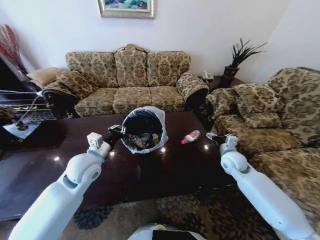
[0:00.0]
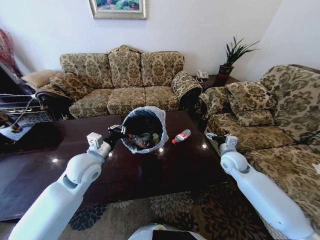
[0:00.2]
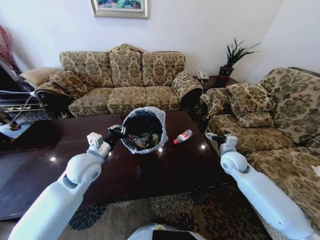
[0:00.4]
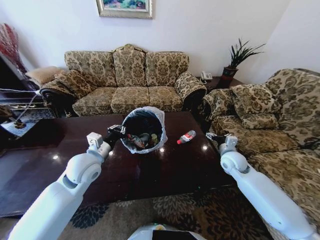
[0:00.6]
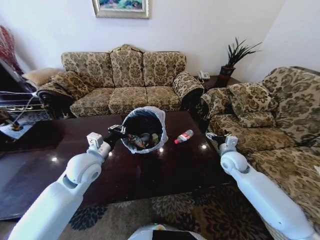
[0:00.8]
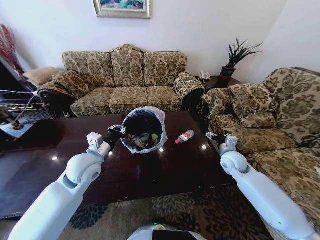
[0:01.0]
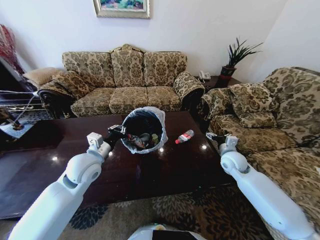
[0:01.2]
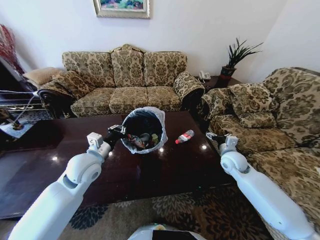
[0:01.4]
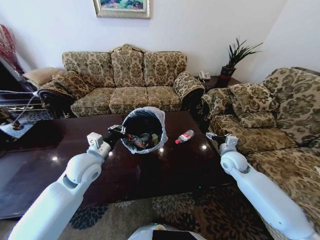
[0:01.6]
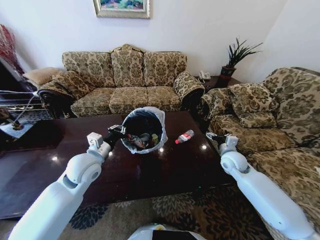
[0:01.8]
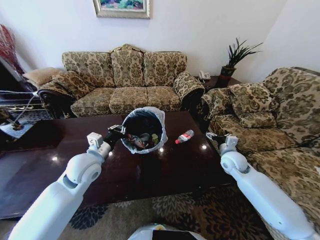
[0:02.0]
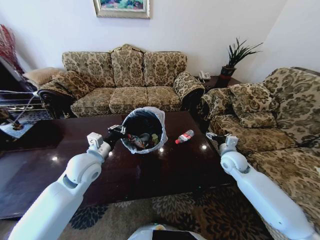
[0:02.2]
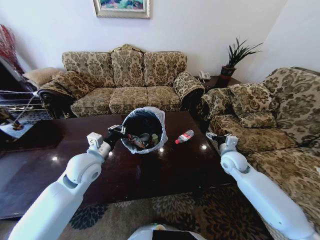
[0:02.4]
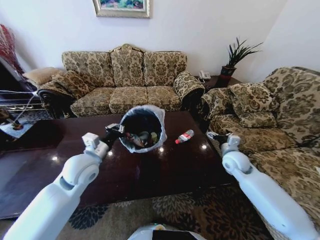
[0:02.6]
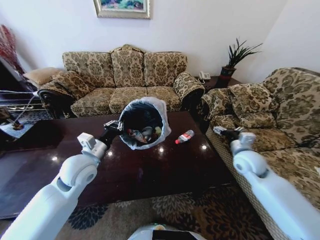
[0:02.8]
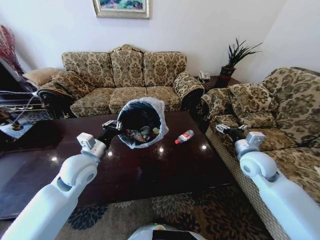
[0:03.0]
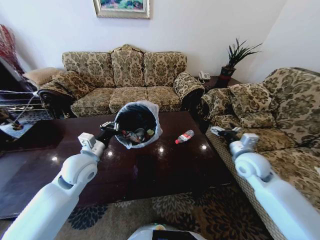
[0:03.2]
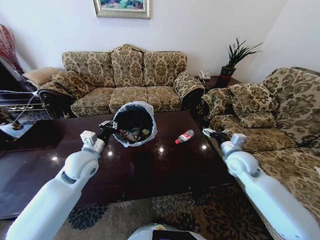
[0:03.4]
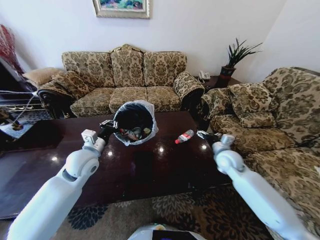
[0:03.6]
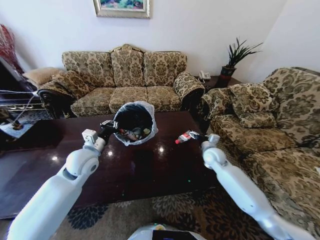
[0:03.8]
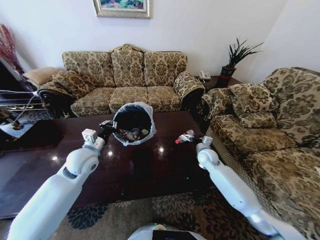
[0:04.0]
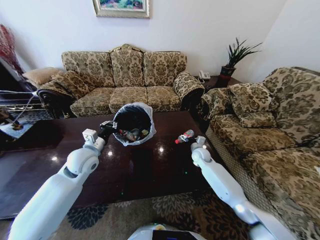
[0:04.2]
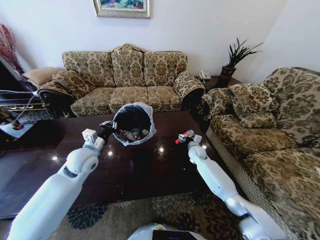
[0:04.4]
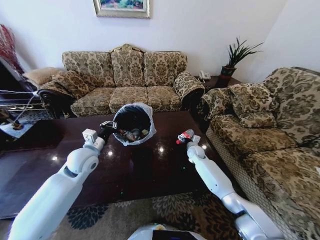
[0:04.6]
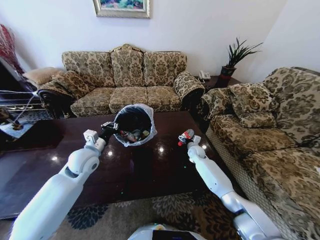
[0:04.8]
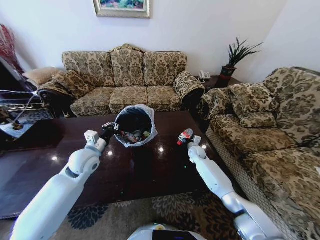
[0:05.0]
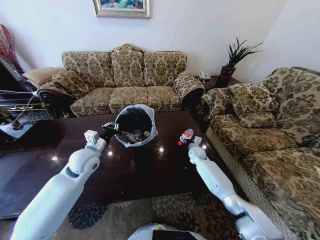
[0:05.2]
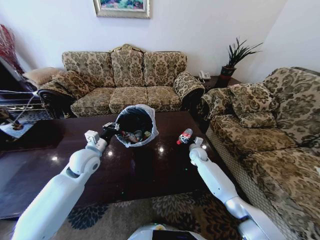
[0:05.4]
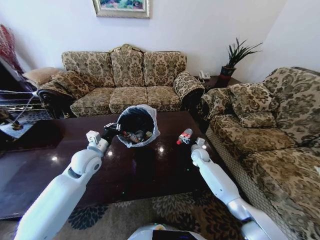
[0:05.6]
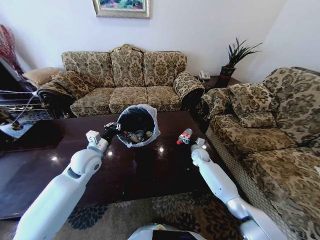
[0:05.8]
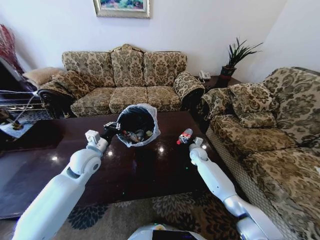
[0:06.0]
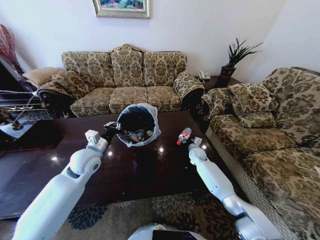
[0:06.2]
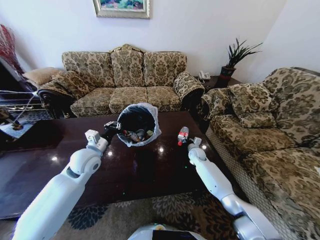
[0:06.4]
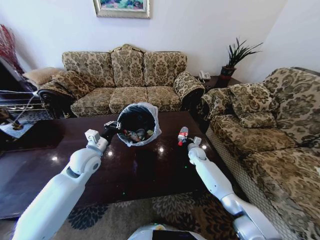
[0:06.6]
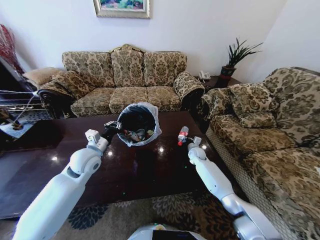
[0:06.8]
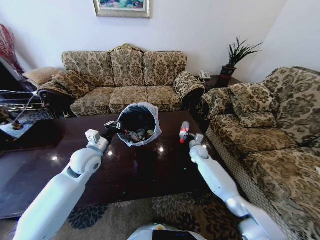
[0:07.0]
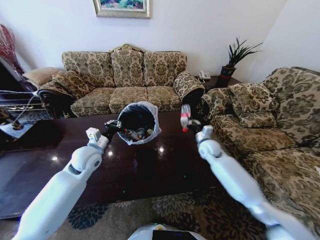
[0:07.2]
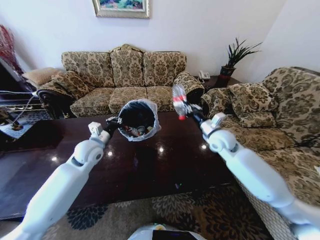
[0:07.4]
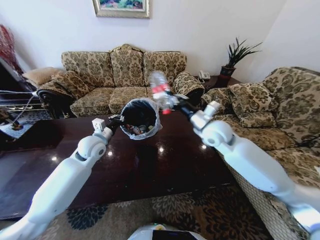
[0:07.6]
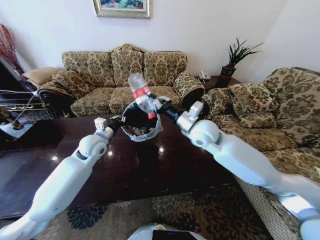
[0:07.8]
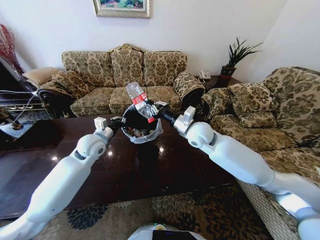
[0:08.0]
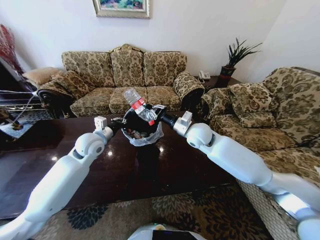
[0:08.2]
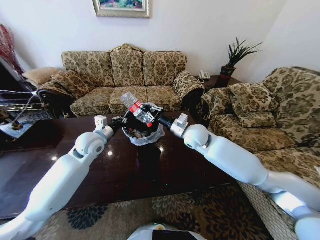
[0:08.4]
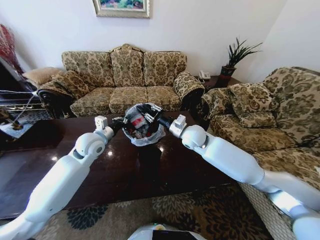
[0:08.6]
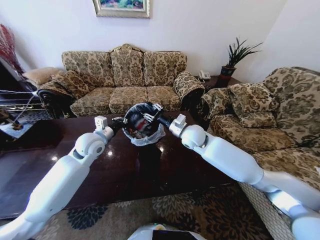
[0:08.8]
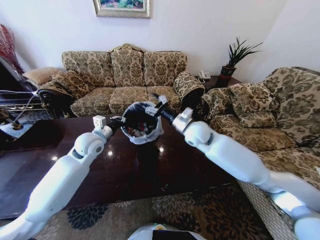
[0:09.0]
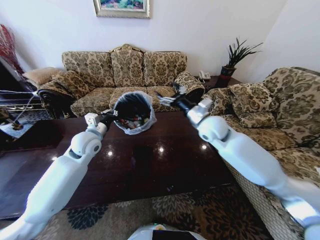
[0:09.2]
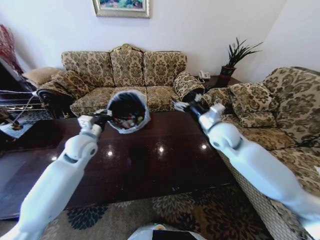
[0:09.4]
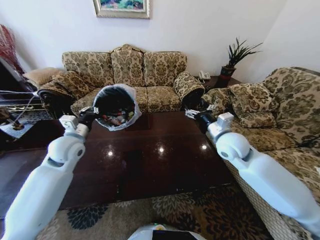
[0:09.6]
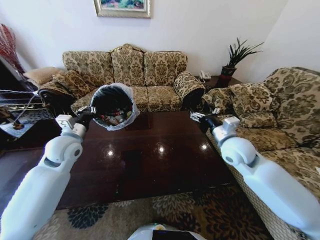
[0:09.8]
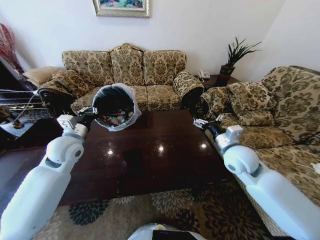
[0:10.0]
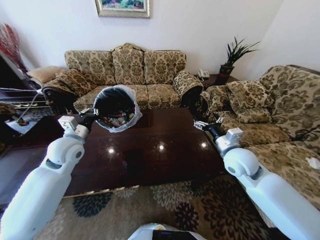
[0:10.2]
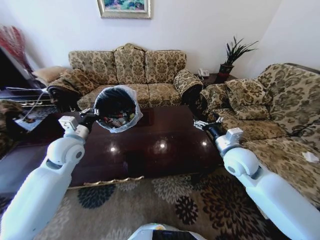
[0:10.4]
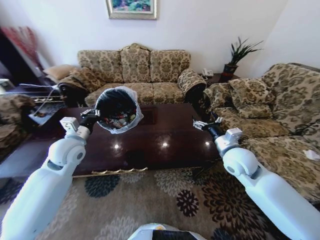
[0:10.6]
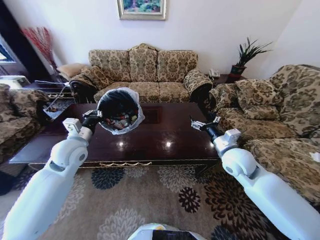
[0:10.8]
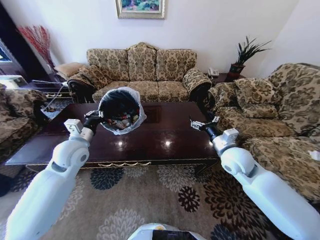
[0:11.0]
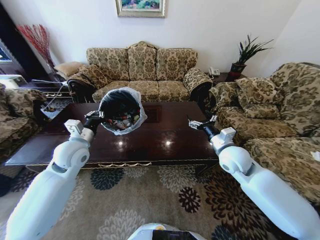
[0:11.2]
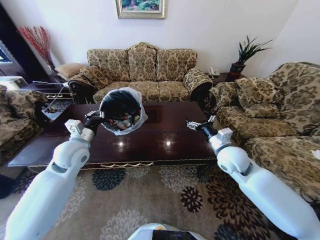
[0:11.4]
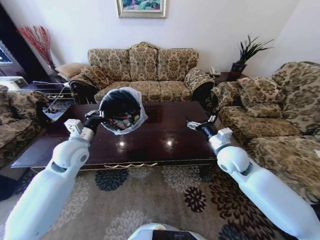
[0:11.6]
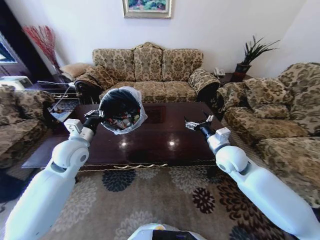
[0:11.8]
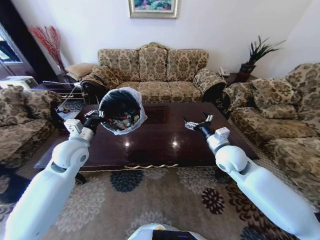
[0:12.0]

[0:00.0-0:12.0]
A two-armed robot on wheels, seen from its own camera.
Task of the whole recording: Move to the front of the table and place the trash on the table into the trash bin.
0:00.0 to 0:01.6: Both grippers stay about where they are.
0:01.6 to 0:03.0: The right gripper heads upward and backward, covering about 10 cm.
0:03.0 to 0:04.4: The right gripper moves downward, forward and to the left, approximately 30 cm. The left gripper changes place by some 5 cm.
0:04.4 to 0:06.0: The grippers stay close to where they were, moving slightly.
0:06.0 to 0:07.6: The left gripper moves forward, roughly 5 cm; the right gripper shifts some 30 cm upward, and closes its fingers.
0:07.6 to 0:09.0: The right gripper shifts roughly 5 cm to the left, and opens its fingers.
0:09.0 to 0:10.4: The left gripper shifts by some 5 cm, while the right gripper moves to the right and backward, about 15 cm.

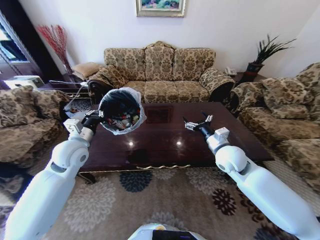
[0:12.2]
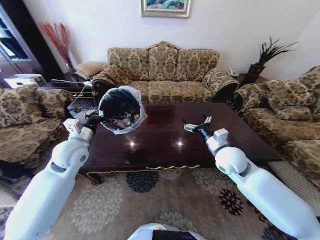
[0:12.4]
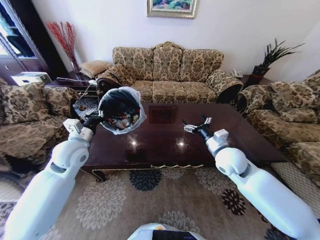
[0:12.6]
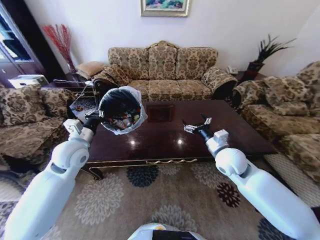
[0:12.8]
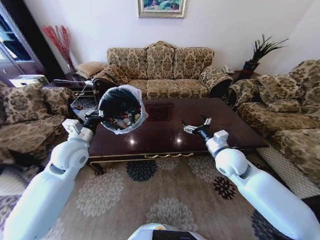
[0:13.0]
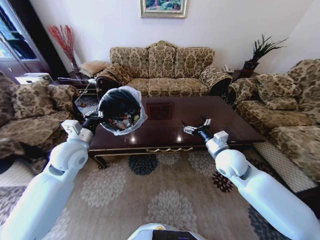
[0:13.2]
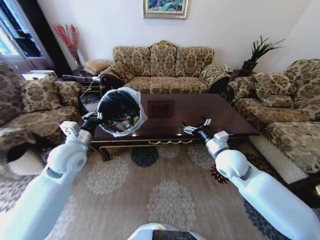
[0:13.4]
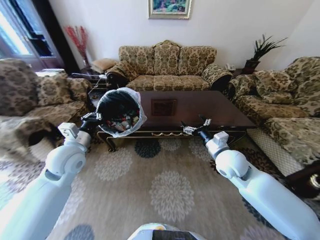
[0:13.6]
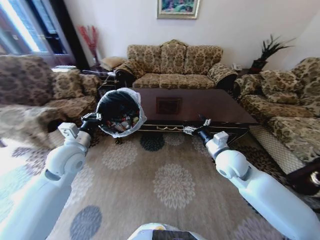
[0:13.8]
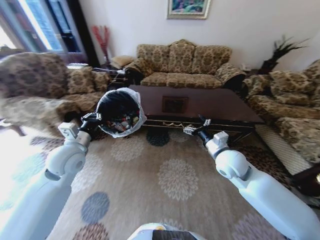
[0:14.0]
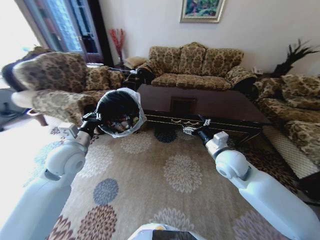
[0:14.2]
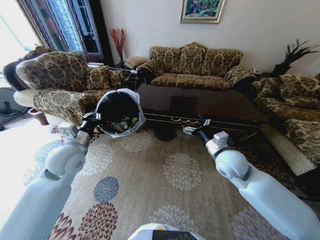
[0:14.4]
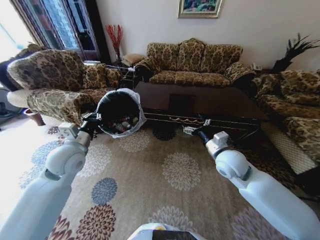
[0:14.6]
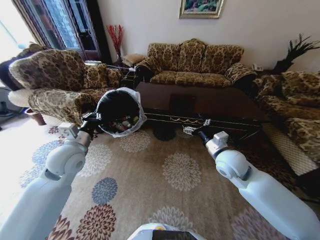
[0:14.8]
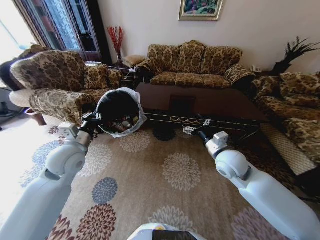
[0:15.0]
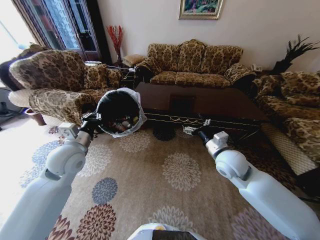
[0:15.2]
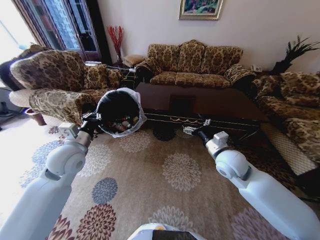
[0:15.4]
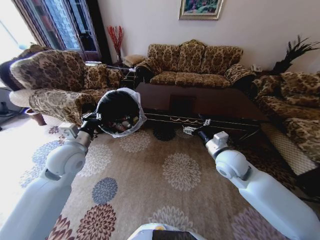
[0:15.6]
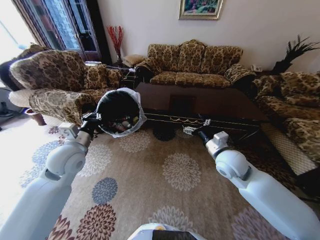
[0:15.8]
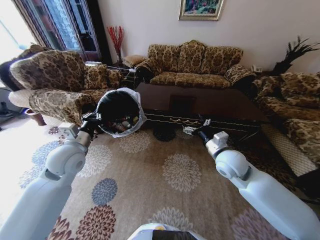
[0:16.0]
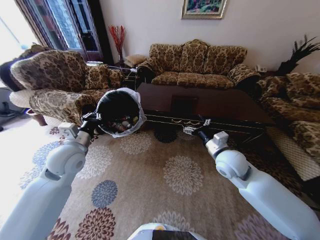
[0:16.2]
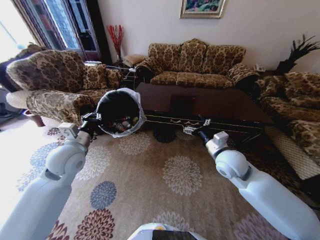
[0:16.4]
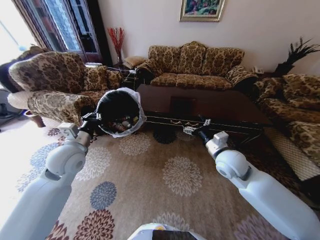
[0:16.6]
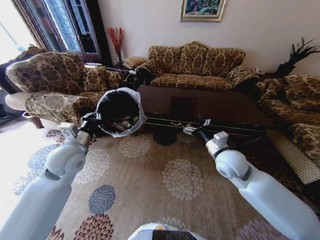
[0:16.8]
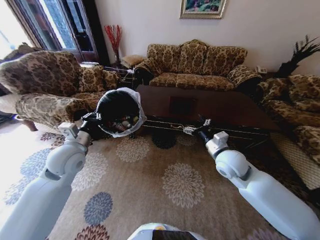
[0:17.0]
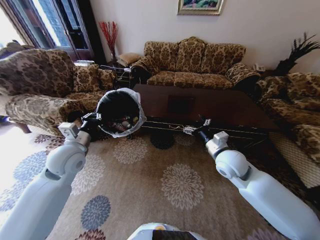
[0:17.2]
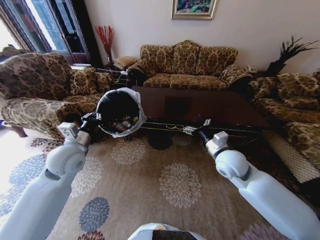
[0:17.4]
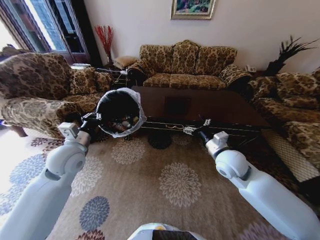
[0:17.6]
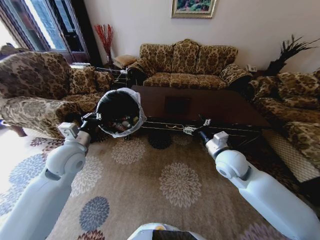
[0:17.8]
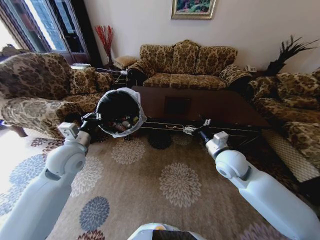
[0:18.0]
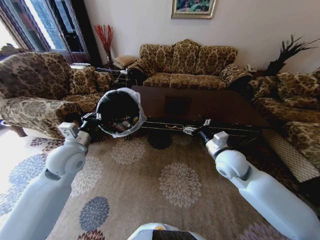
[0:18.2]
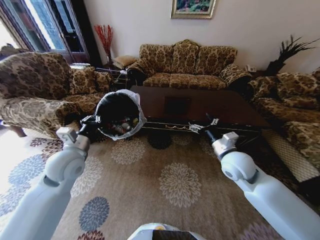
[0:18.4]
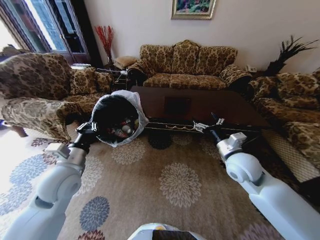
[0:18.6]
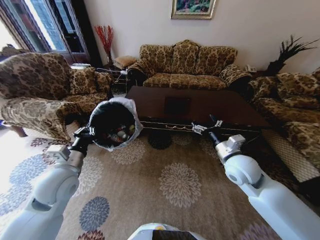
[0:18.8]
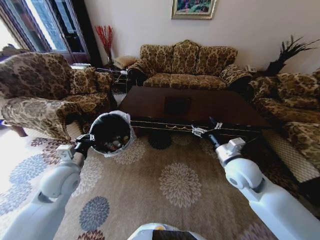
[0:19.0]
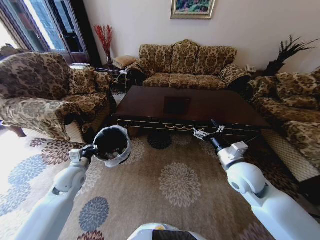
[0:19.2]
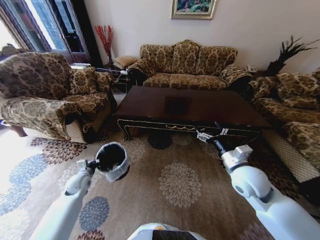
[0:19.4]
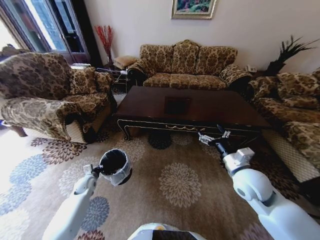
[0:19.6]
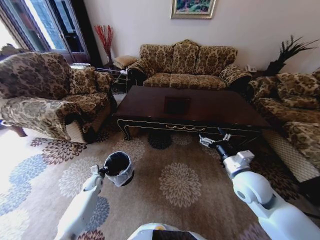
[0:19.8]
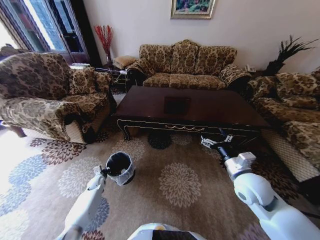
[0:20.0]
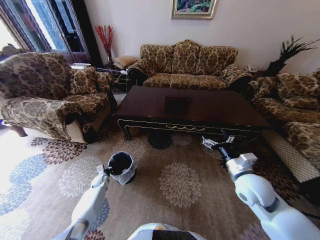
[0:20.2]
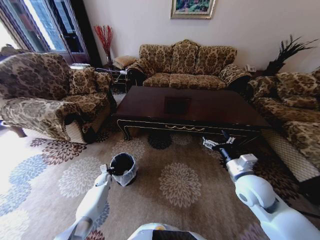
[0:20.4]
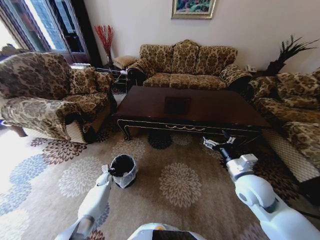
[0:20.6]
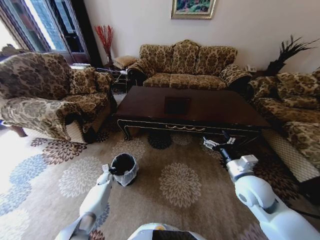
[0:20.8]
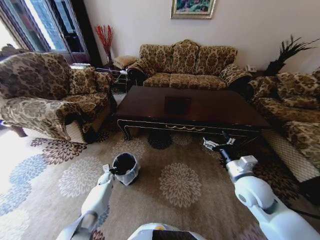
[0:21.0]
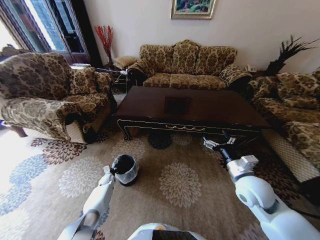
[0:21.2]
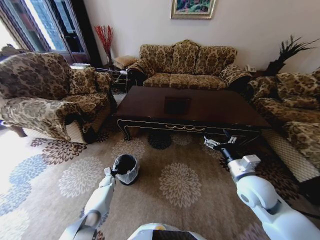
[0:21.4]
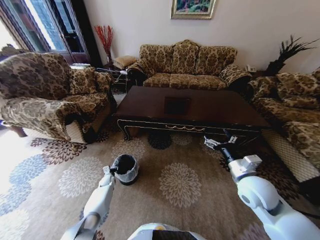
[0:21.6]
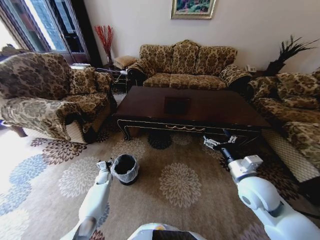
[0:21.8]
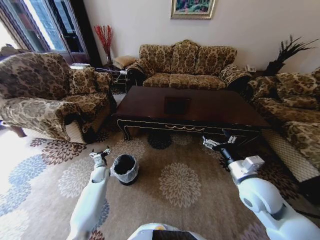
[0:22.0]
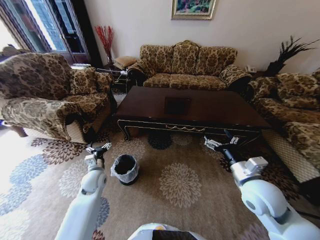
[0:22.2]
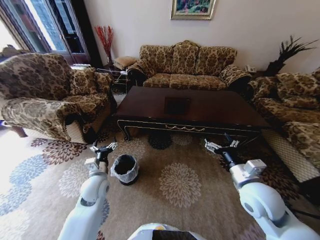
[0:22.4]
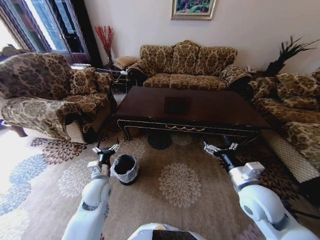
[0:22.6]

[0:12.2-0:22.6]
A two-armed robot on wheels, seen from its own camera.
Task of the whole recording: Move to the front of the table and place the trash on the table into the trash bin.
0:15.2 to 0:16.6: Both grippers stay about where they are.
0:18.2 to 0:19.6: The right gripper shifts roughly 5 cm backward. The left gripper travels downward by approximately 30 cm.
0:19.6 to 0:21.2: The left gripper is displaced downward, forward and to the right by about 15 cm.
0:21.2 to 0:22.6: The left gripper shifts approximately 30 cm upward and backward, and opens its fingers.
